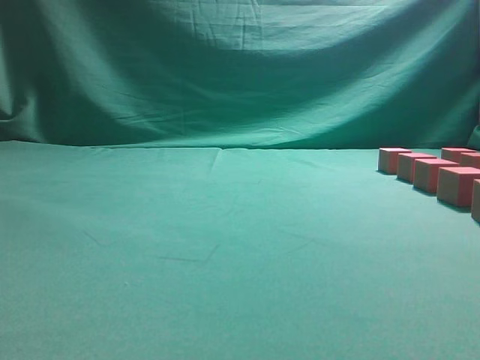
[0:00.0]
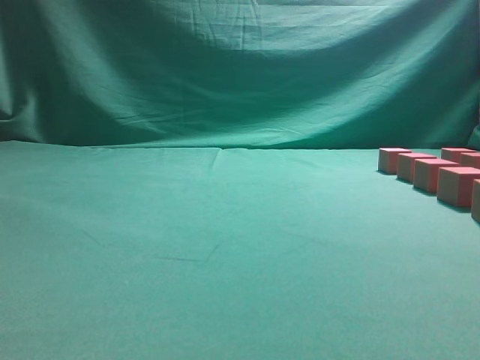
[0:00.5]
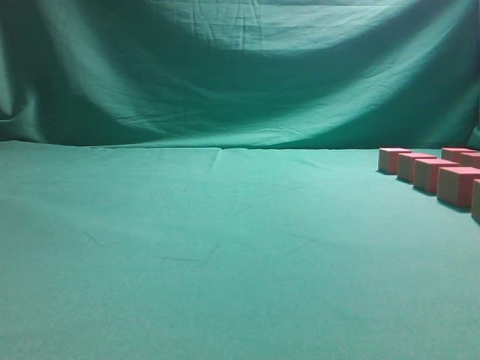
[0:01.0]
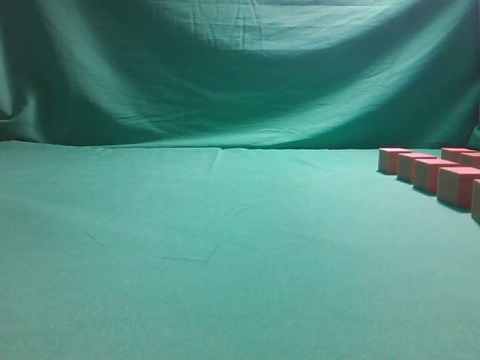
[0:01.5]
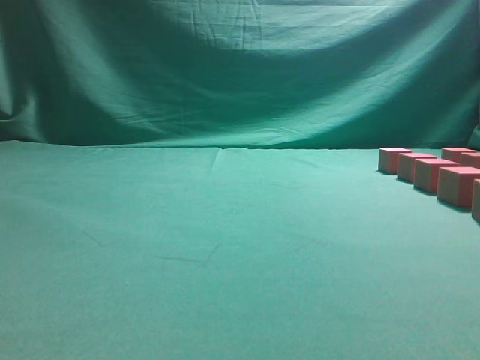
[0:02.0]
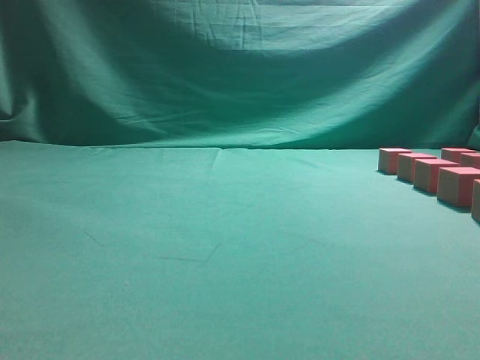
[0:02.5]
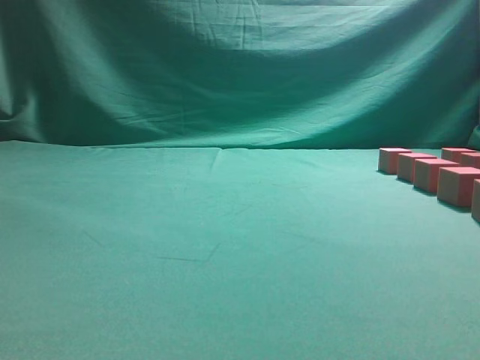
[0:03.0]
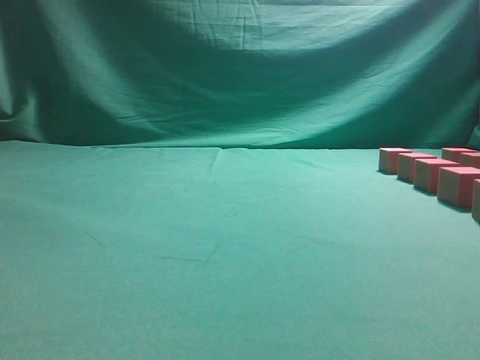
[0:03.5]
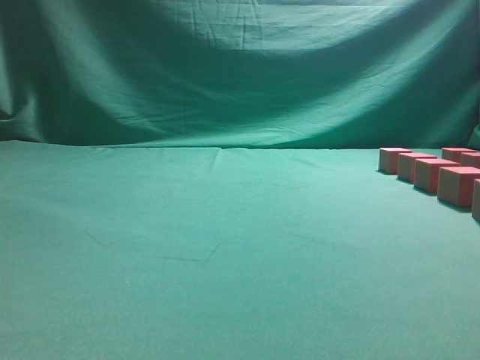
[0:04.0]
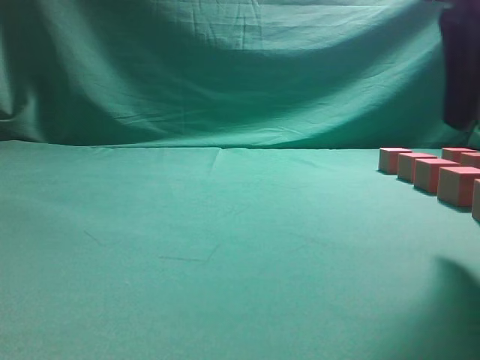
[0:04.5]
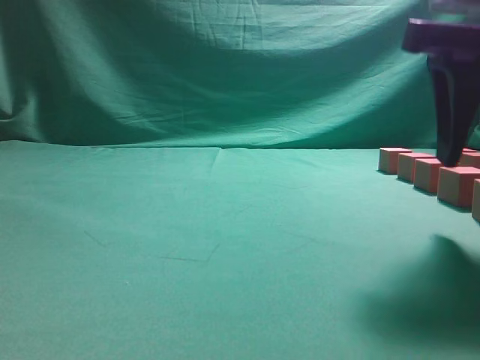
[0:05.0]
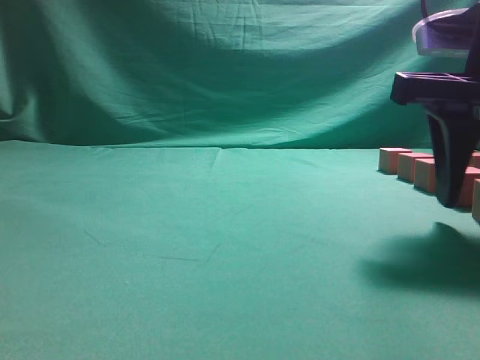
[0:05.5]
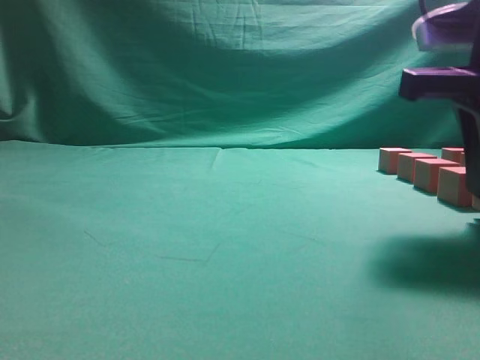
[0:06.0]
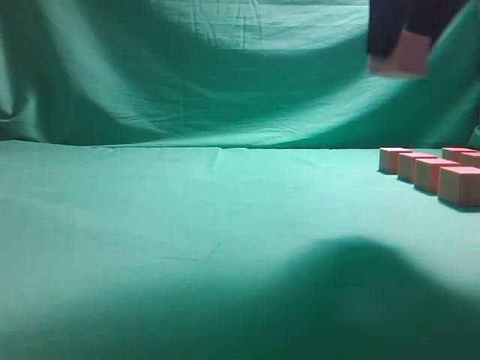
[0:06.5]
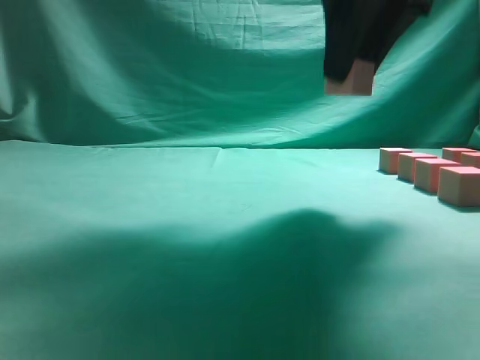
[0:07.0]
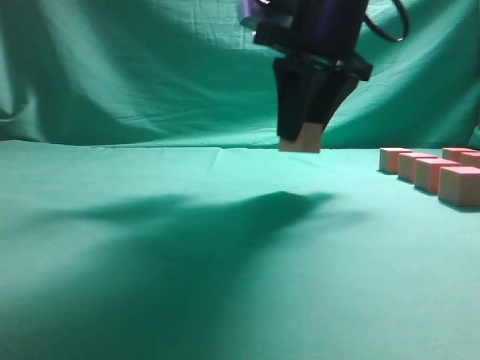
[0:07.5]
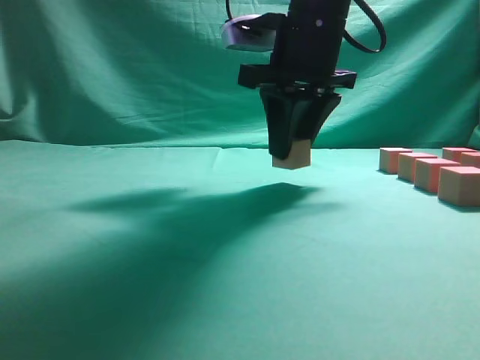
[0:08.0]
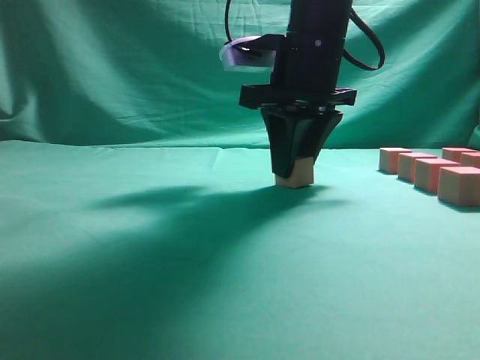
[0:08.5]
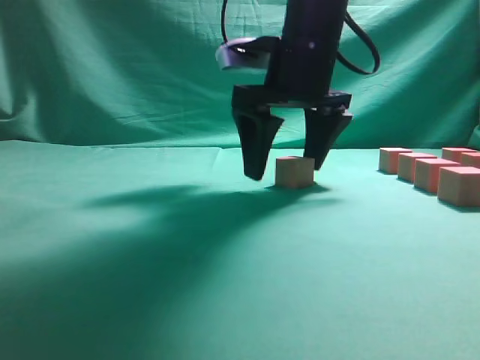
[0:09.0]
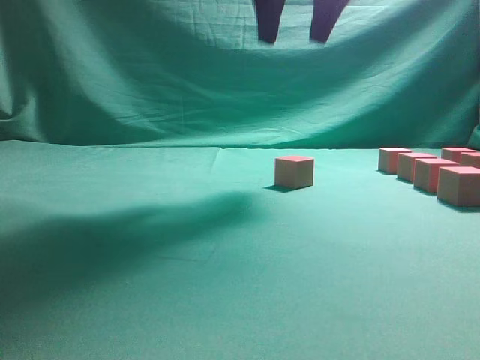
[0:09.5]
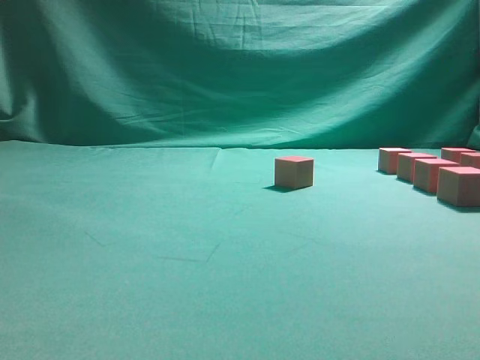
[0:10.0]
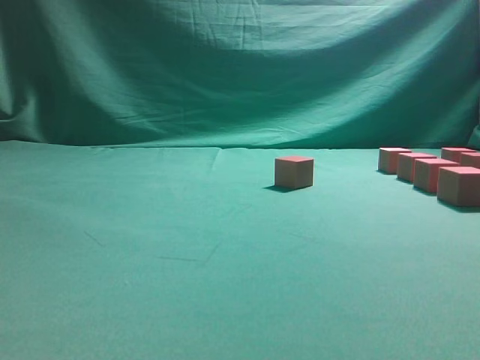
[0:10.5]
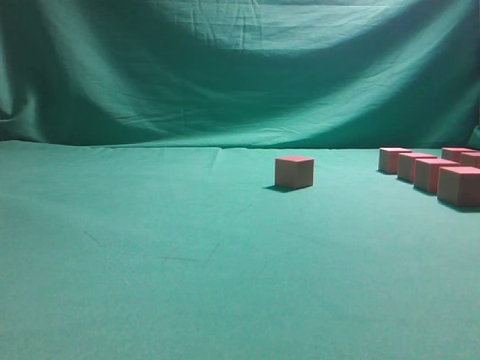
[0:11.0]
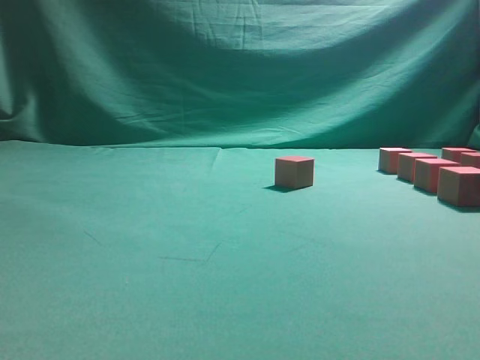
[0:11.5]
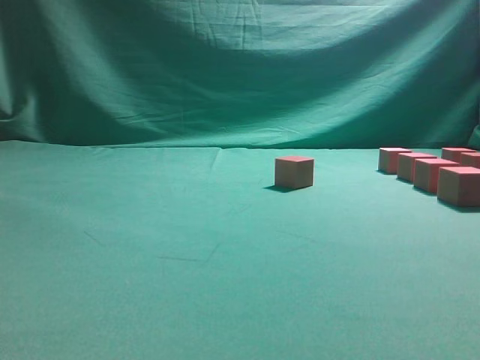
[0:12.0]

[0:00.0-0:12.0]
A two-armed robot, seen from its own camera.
Task of the whole recording: pick up the multiple cubes in two columns one by one and place them in another position on the table.
Step, 0:00.0 to 0:06.0: Pick up the block on the table.
Step, 0:06.5 to 0:09.0: Place the block at the correct position to assemble the letter S.
0:04.0 to 0:06.0: The right gripper travels downward and forward by roughly 10 cm, and opens.
0:06.0 to 0:08.0: The right gripper heads forward and to the left, covering some 20 cm.
0:08.0 to 0:10.0: The right gripper moves upward, to the right and backward, about 25 cm, and opens.

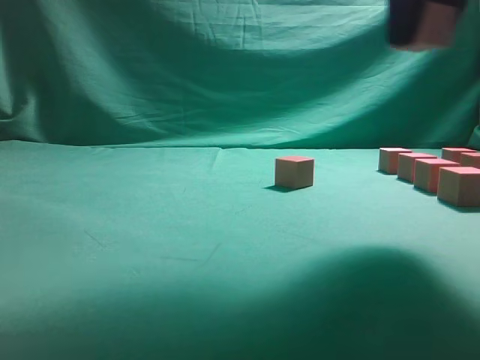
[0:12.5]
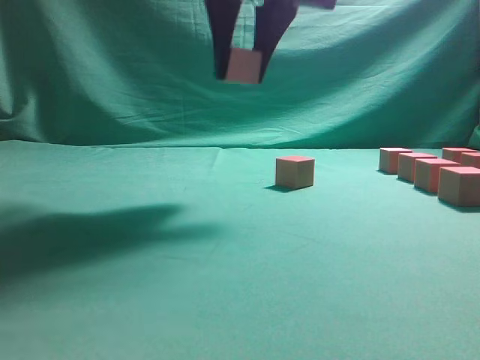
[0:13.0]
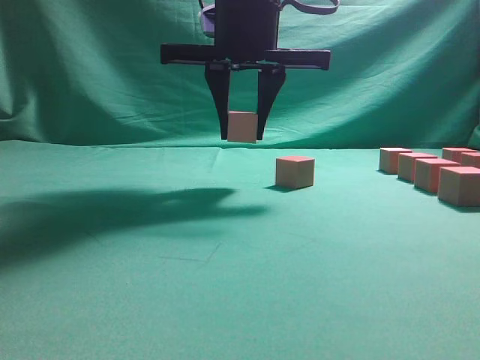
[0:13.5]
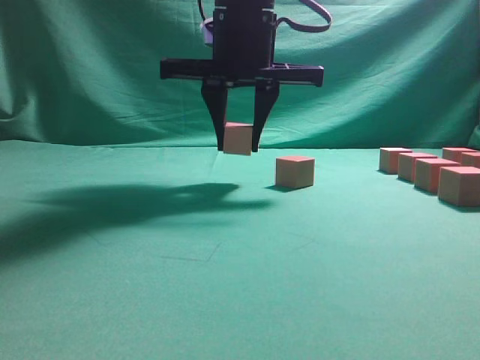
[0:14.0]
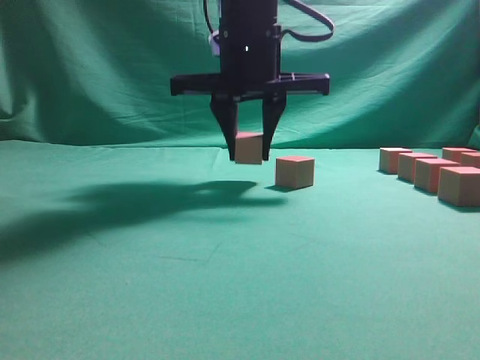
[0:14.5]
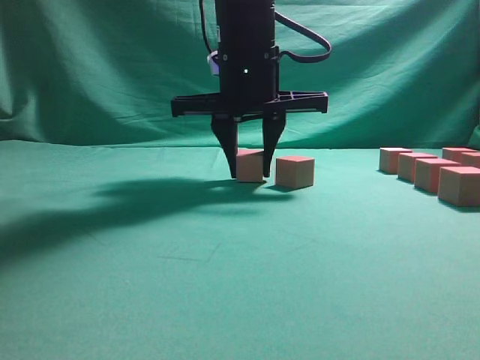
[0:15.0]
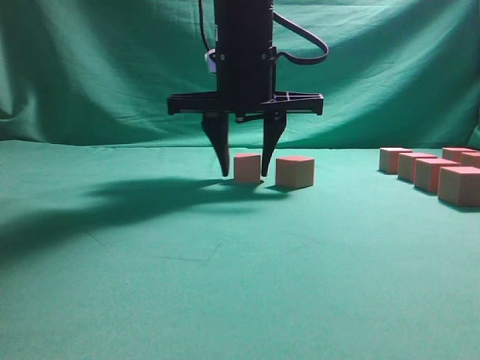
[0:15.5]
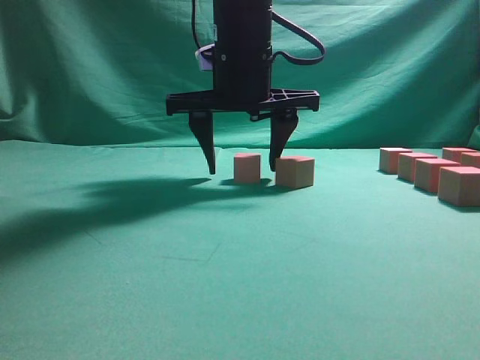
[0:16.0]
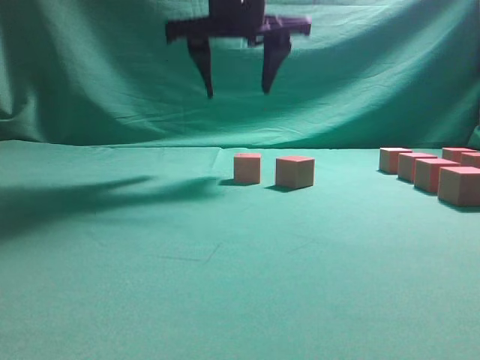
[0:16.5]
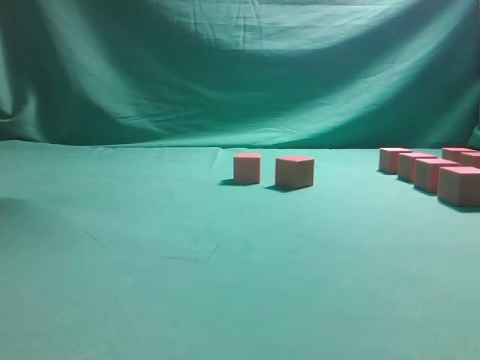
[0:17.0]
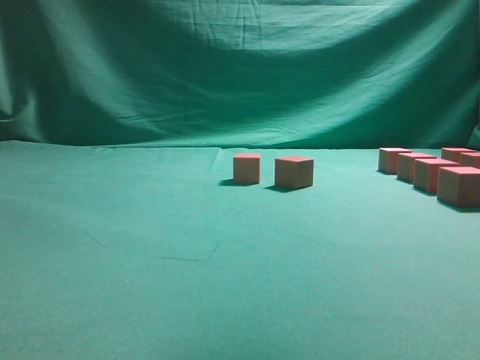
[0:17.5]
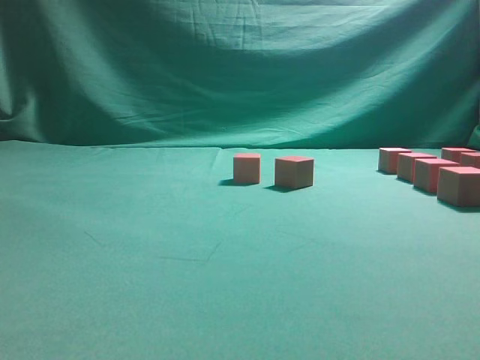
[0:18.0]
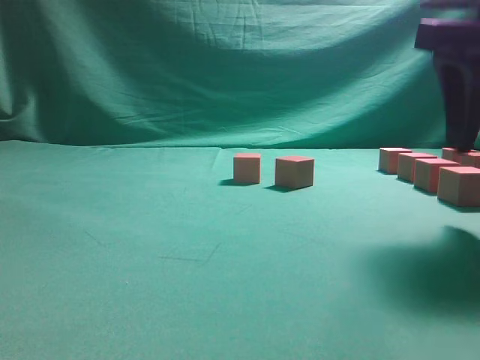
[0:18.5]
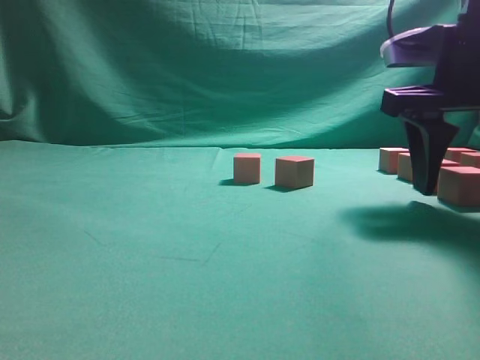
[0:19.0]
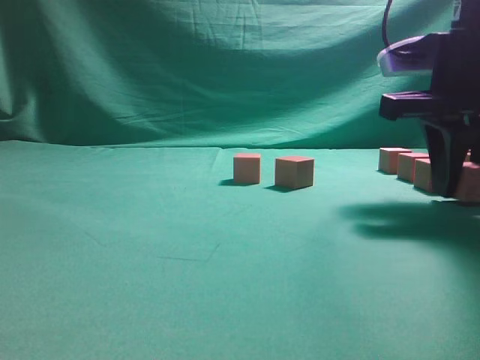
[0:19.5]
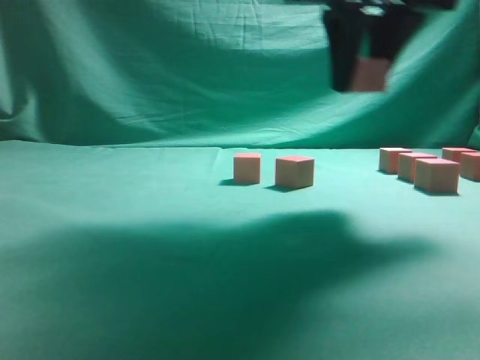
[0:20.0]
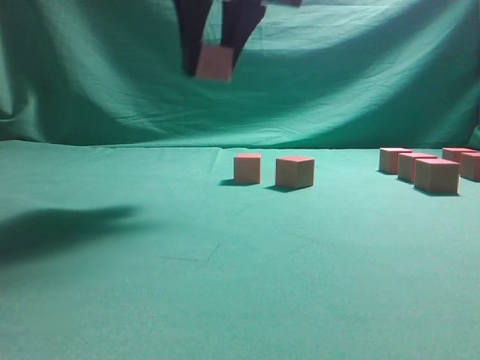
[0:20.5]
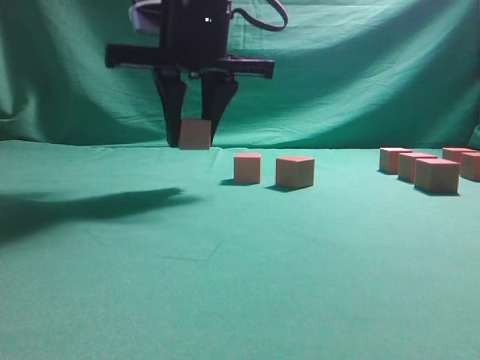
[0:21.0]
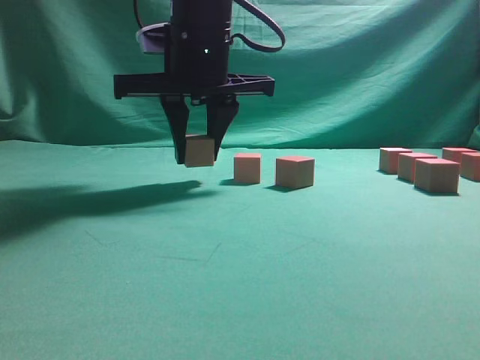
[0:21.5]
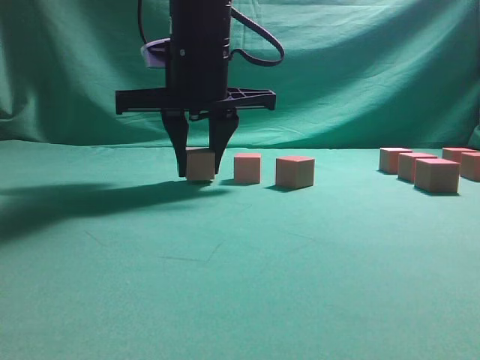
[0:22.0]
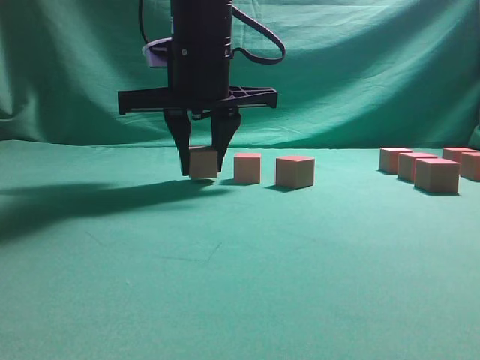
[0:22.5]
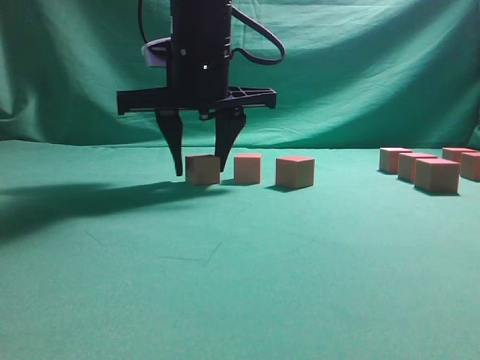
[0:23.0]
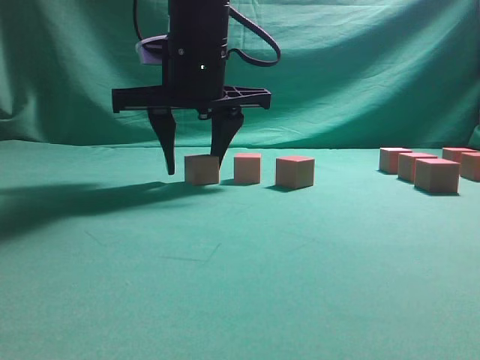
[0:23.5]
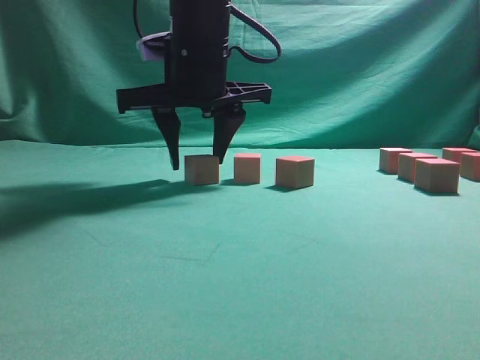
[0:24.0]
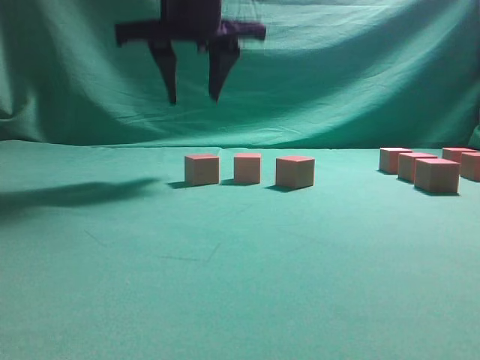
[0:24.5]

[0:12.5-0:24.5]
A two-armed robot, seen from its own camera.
Task of the whole recording: pick up the multiple cubes in two columns one by one and place them in another position on the table.
Step, 0:12.5 to 0:16.5: Place the block at the correct position to assemble the letter S.
Step, 0:17.0 to 0:19.5: Pick up the block on the table.
0:12.5 to 0:14.5: The right gripper is displaced to the left, forward and downward by about 20 cm.
0:14.5 to 0:16.5: The right gripper shifts roughly 5 cm upward, and opens its fingers.
0:16.5 to 0:18.5: The right gripper travels to the right and backward by about 25 cm, and goes upward and returns, approximately 20 cm each way.
0:18.5 to 0:20.5: The right gripper is displaced to the left by about 20 cm, and closes its fingers.
0:20.5 to 0:22.5: The right gripper shifts about 10 cm downward.
0:22.5 to 0:24.5: The right gripper heads upward, covering roughly 5 cm.

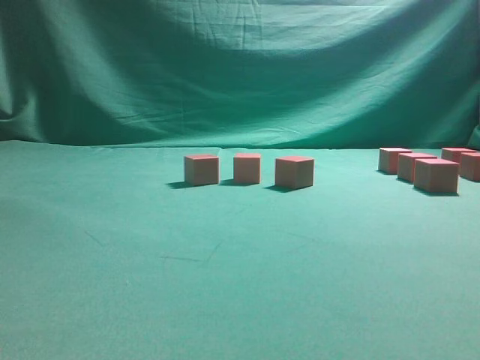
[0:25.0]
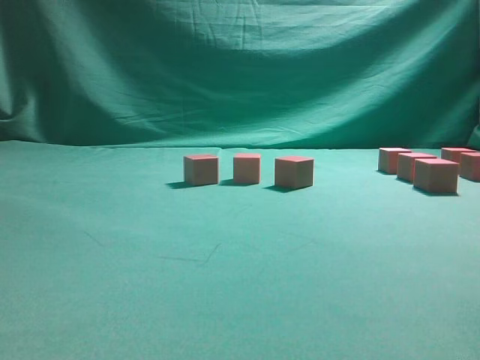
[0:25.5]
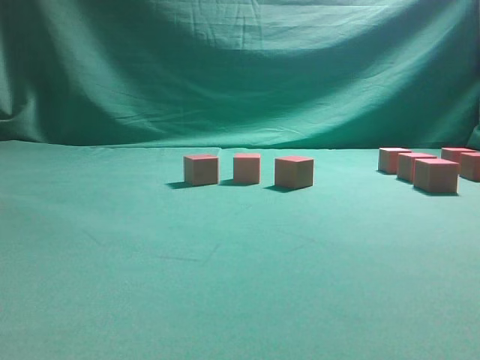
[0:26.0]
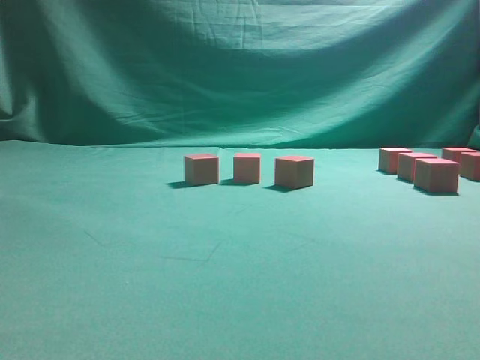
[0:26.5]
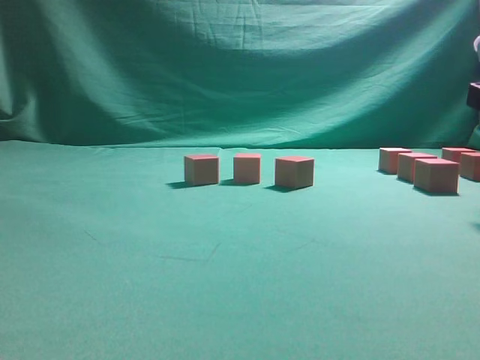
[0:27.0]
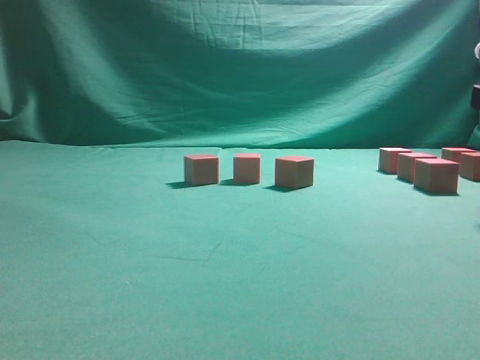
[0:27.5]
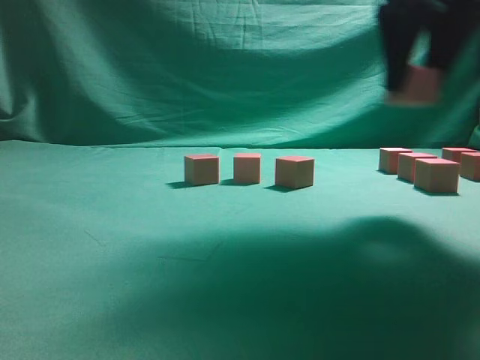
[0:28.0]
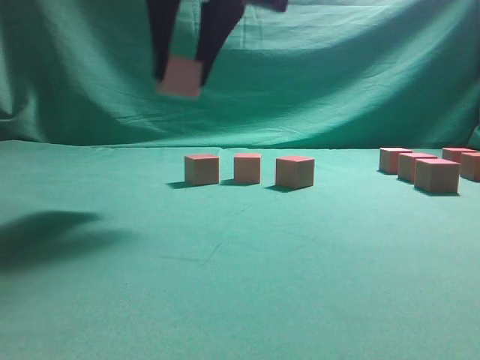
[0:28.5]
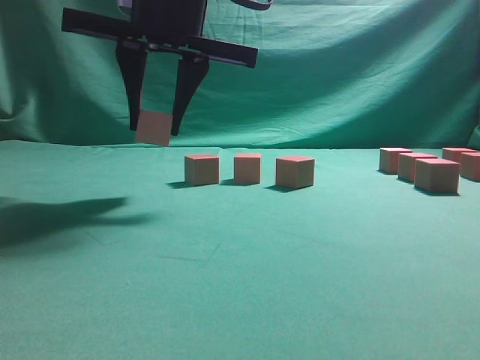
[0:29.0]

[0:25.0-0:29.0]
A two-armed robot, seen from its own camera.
Task of the whole recording: pick up the multiple cubes in two columns one by one and place them in another position on the table.
0:27.0 to 0:29.0: The right gripper is displaced to the left by about 30 cm.
